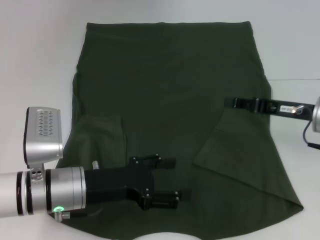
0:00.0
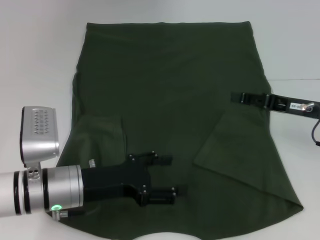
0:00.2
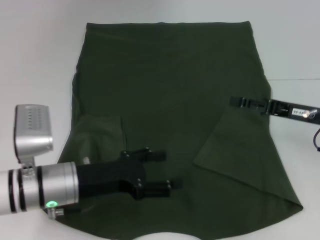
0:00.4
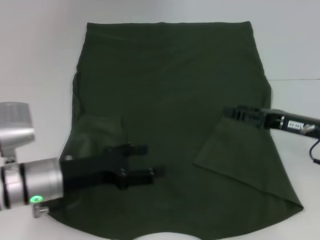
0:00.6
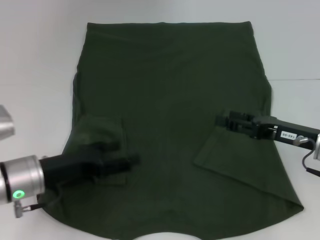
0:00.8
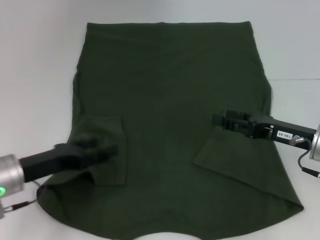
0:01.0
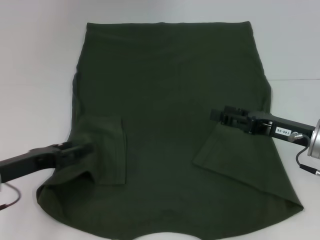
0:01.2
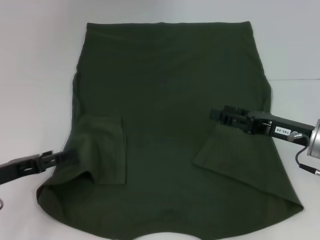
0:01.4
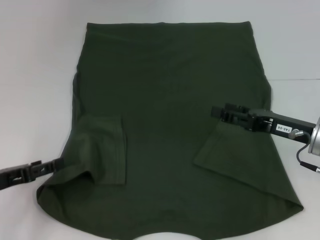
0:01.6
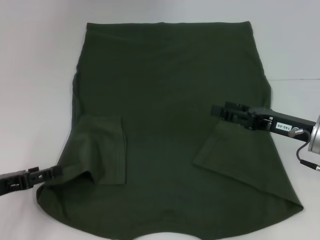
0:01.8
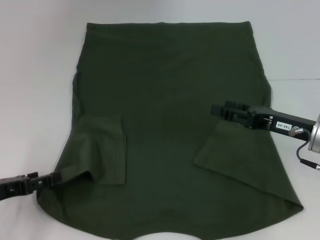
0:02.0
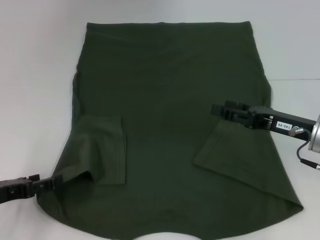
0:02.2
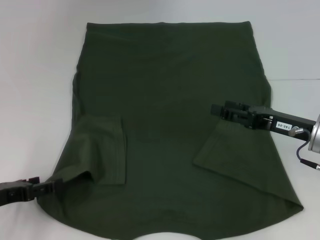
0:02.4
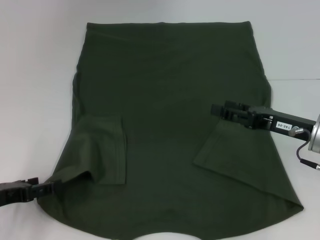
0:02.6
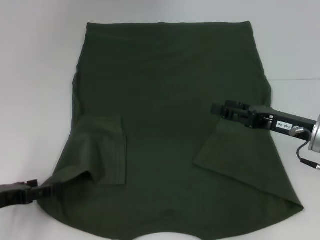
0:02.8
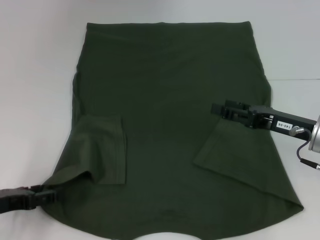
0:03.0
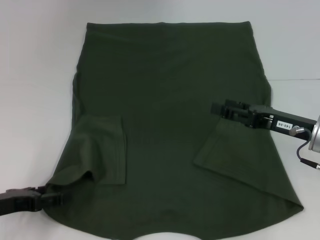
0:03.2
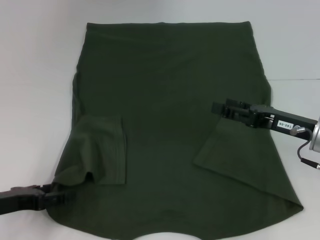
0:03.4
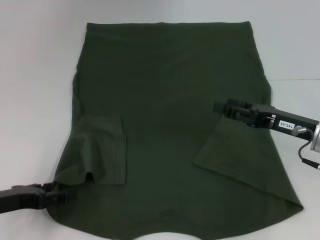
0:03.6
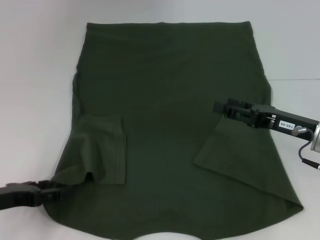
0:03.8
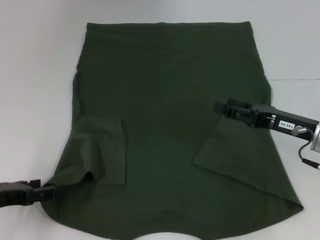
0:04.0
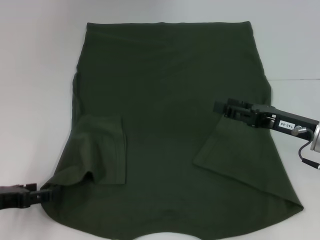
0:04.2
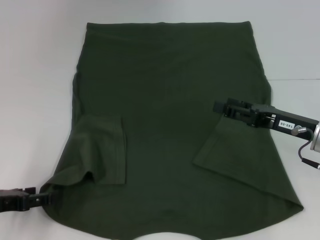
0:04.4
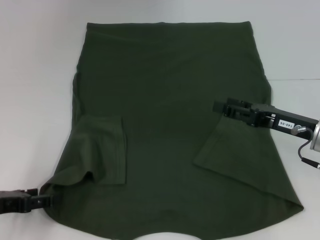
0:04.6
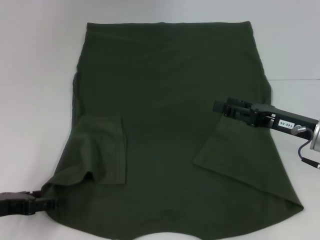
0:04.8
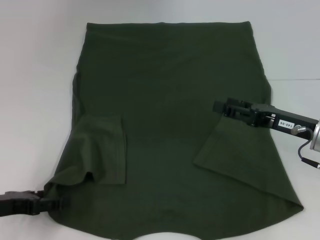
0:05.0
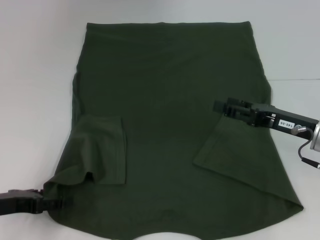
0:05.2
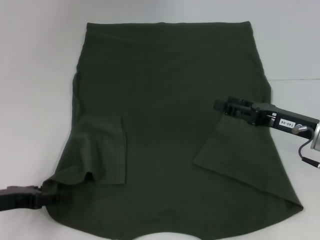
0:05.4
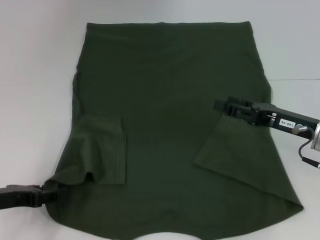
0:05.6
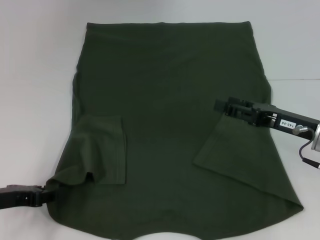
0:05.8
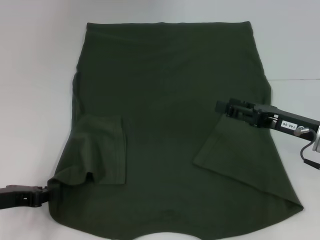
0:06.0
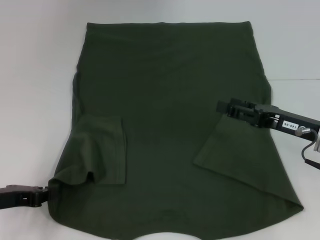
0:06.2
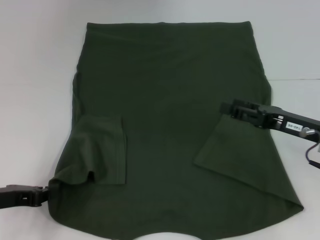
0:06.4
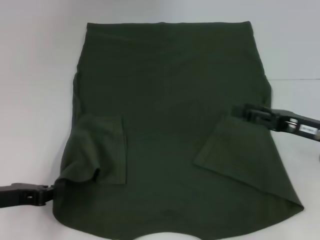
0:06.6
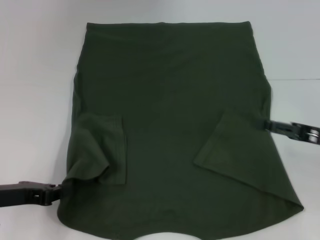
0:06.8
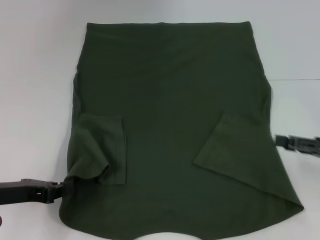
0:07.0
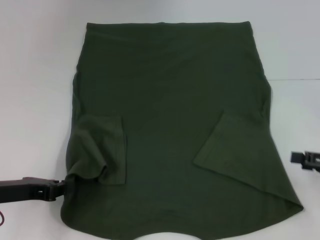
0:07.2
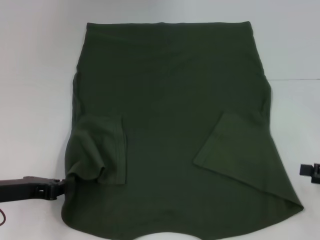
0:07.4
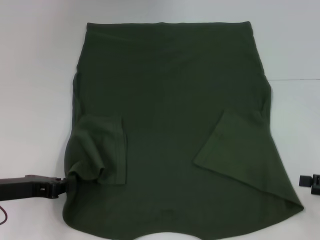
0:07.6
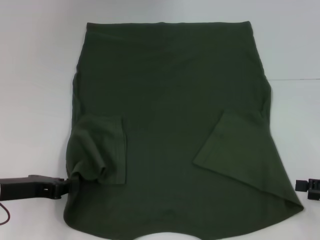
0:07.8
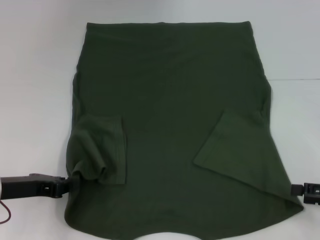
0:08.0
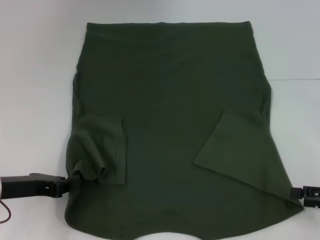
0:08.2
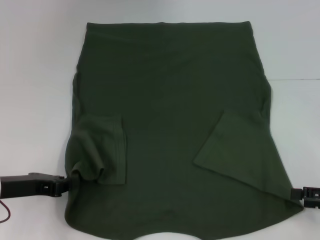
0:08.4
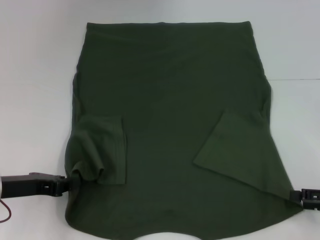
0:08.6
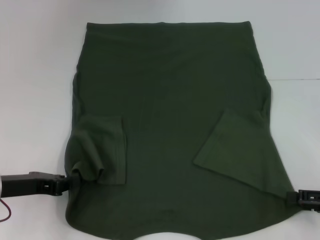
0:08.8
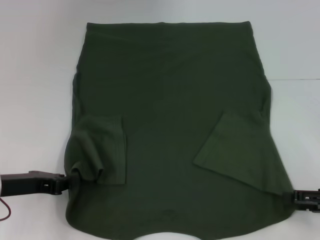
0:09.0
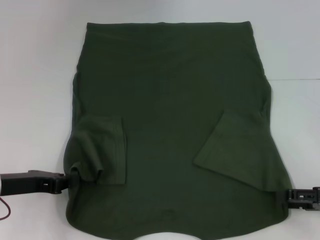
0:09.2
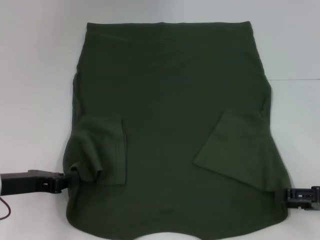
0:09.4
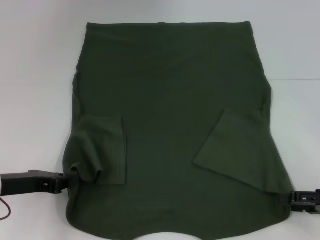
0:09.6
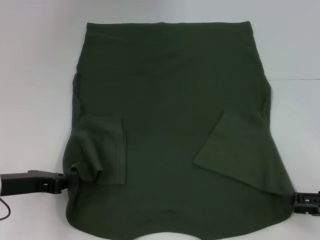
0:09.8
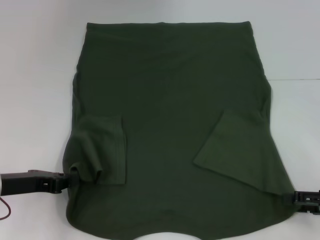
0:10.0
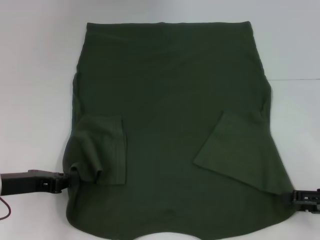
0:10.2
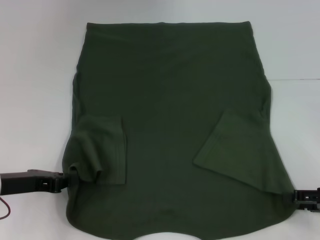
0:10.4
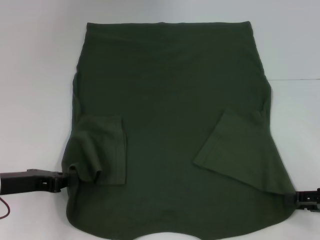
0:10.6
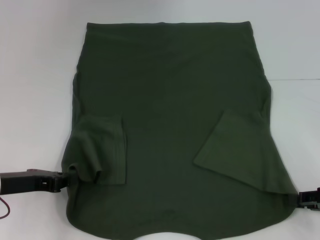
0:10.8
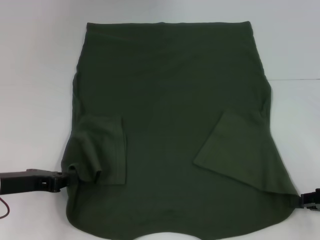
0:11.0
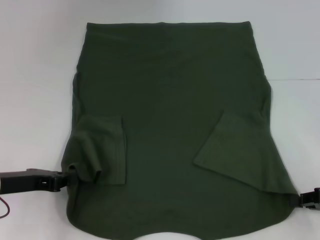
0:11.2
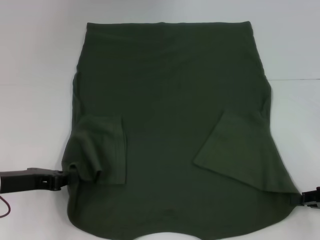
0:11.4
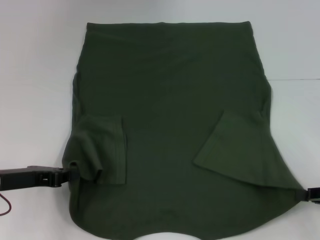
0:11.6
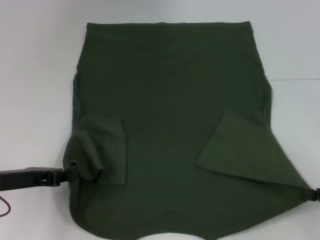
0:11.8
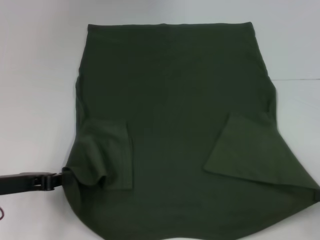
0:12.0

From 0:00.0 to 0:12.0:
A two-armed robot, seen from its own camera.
Step, from 0:00.4 to 0:06.4: Grab the bottom left corner with your left hand.
Step, from 0:06.6 to 0:11.6: Grab the bottom right corner with your right hand.
From 0:00.0 to 0:01.6: The left gripper moves to the left, some 15 cm. Meanwhile the right gripper opens up.
From 0:01.6 to 0:04.4: There are only small adjustments of the grippers.
From 0:04.4 to 0:06.0: The left gripper closes.
From 0:06.0 to 0:07.6: The left gripper closes its fingers. The right gripper goes some 15 cm to the right and backward.
From 0:07.6 to 0:09.0: The grippers make only small movements.
From 0:09.0 to 0:10.4: Neither gripper changes place.
From 0:10.4 to 0:12.0: The right gripper closes up.

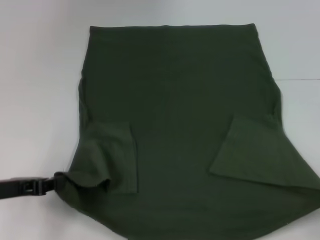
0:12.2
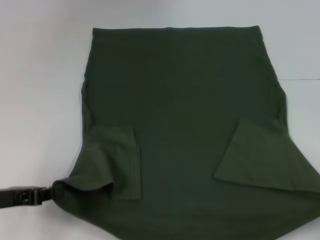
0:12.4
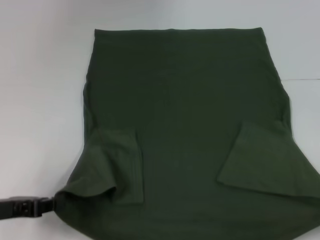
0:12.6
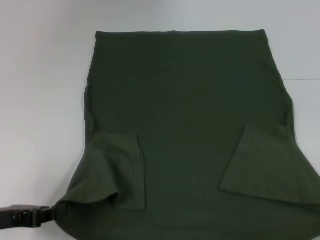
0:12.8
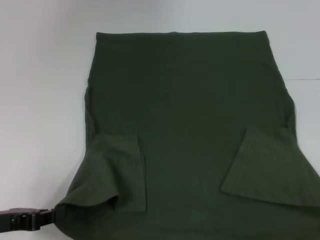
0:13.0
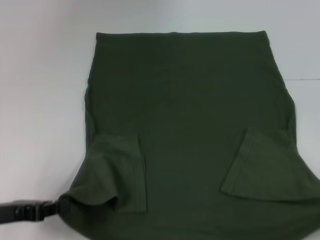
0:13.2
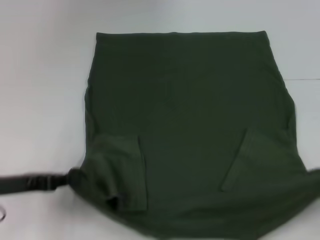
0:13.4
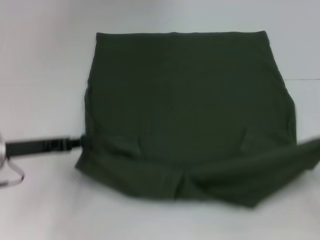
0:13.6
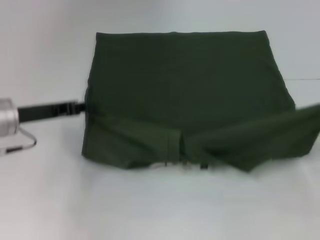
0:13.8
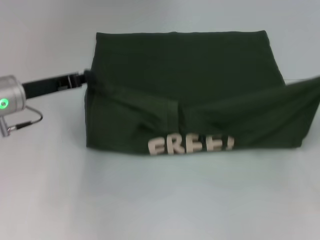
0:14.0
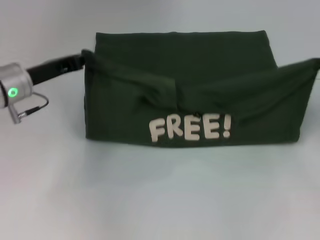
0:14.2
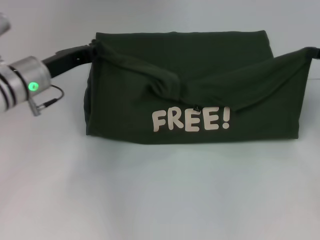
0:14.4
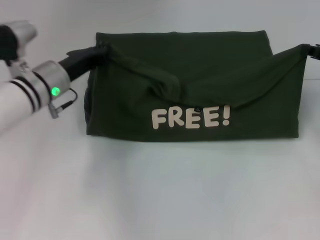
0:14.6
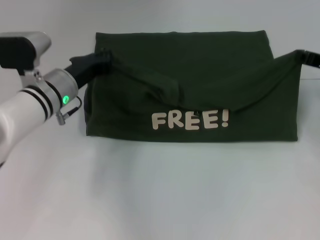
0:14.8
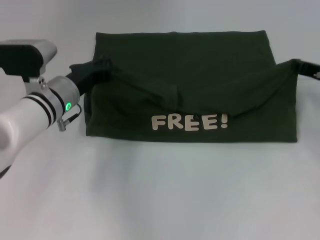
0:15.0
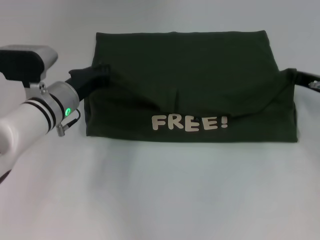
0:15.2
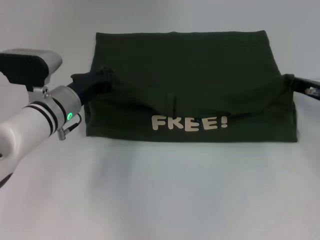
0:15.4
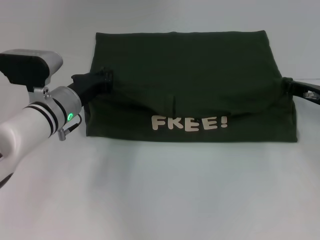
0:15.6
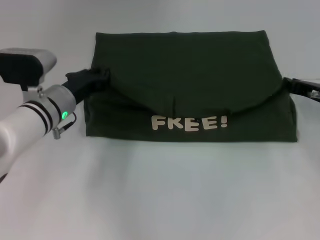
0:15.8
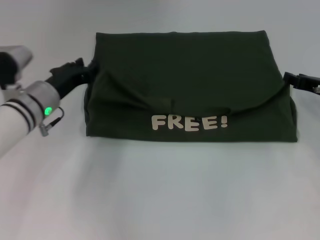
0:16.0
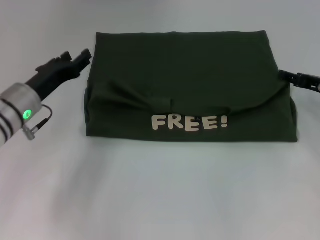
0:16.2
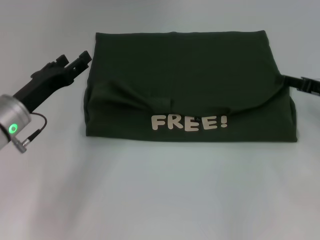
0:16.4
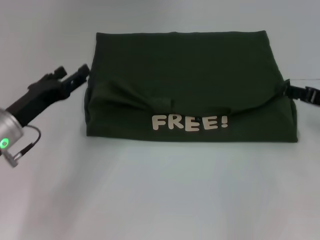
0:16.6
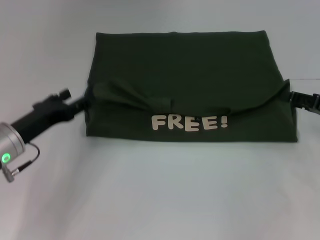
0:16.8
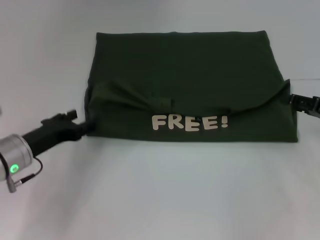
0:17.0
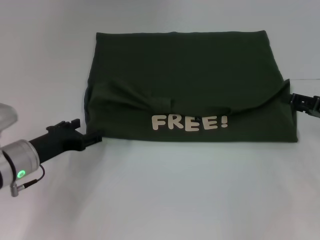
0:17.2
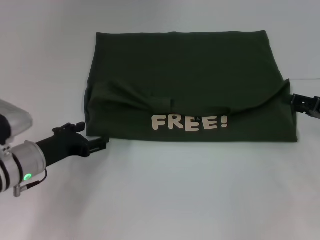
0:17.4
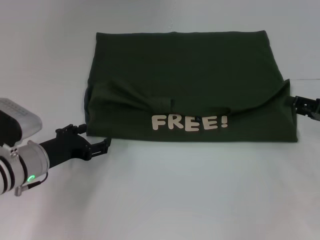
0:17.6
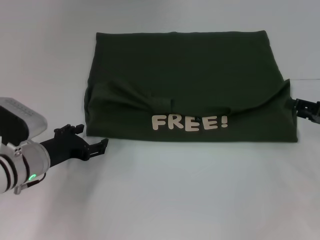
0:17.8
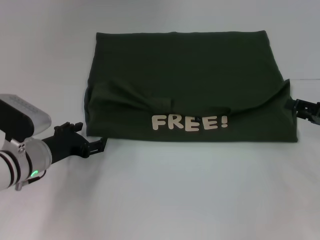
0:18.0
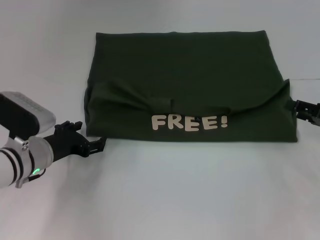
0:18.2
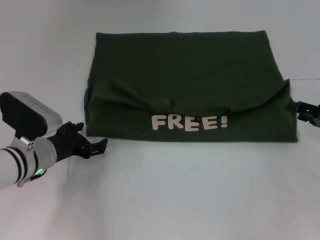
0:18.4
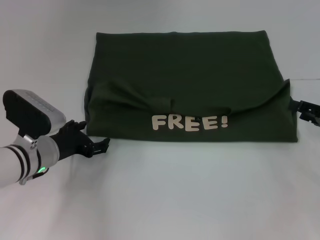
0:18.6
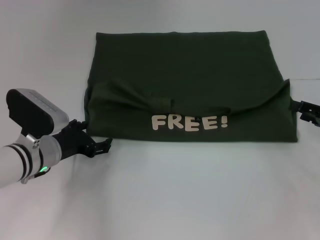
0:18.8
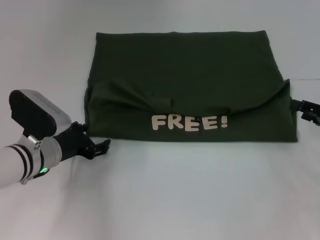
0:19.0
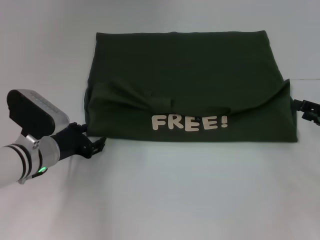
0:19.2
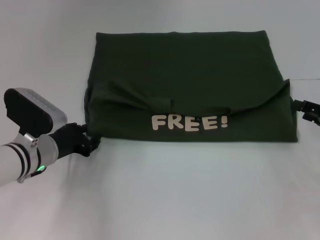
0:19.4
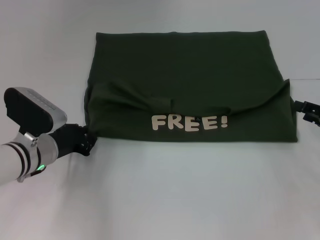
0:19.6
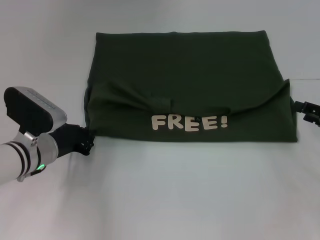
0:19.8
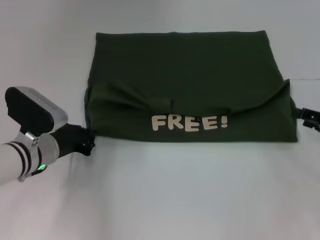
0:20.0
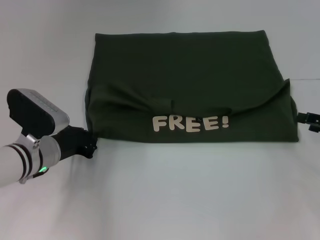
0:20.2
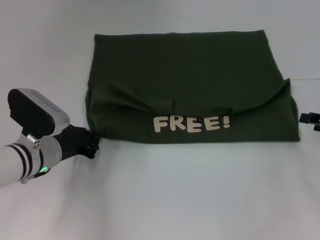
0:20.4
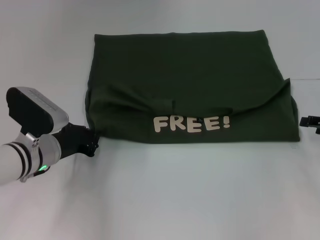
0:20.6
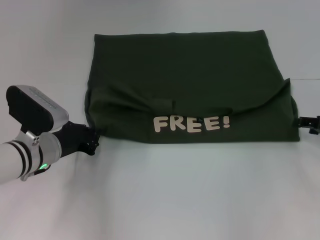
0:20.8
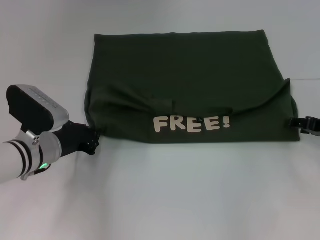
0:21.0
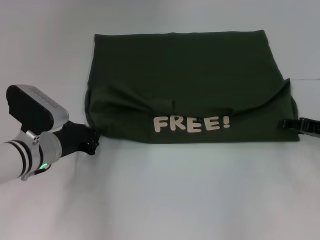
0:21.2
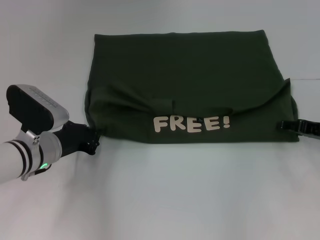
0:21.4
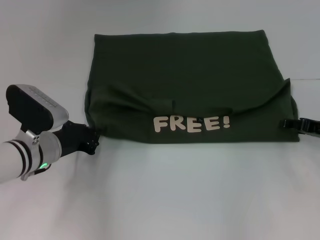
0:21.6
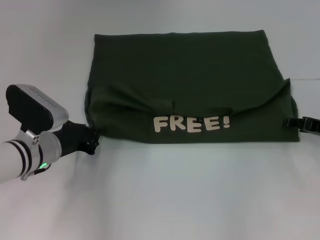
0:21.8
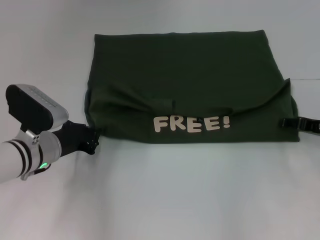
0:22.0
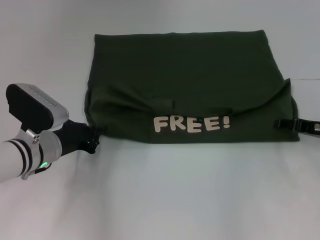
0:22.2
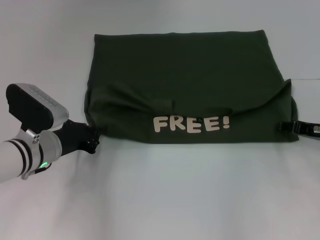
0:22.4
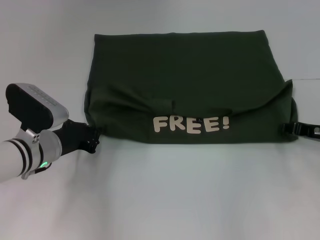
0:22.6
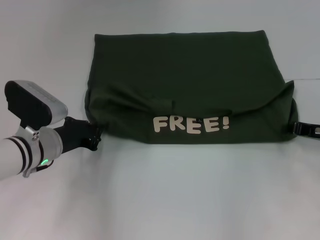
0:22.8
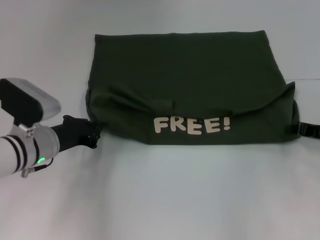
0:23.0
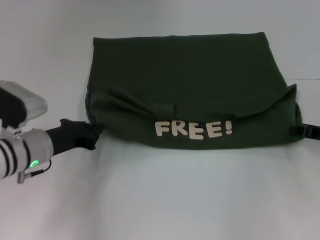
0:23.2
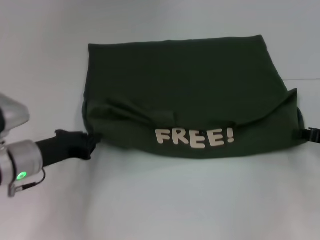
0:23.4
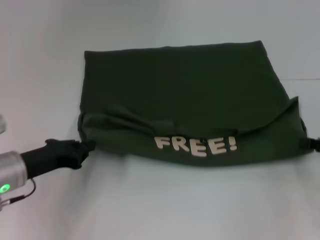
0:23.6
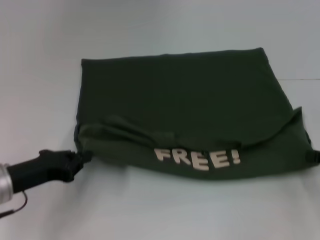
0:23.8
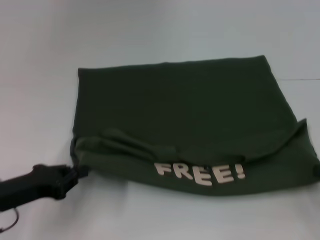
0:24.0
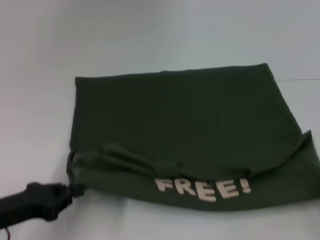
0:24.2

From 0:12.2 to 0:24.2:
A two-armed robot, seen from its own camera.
Step, from 0:12.2 to 0:16.0: Fold the clothes with your left hand.
Step, from 0:12.2 to 0:16.0: Fold the clothes with your right hand.
From 0:12.2 to 0:13.8: The left gripper heads forward, covering about 10 cm. The right gripper goes some 10 cm forward and upward.
From 0:13.8 to 0:15.2: The left gripper goes roughly 10 cm to the right and forward. The right gripper goes approximately 15 cm forward and to the left.
From 0:15.2 to 0:16.6: The left gripper is displaced to the left and backward by some 10 cm, and opens up; the right gripper ends up some 5 cm from where it was, and opens its fingers.
From 0:16.6 to 0:18.2: The left gripper is displaced downward by some 5 cm.
From 0:18.2 to 0:19.8: The left gripper closes its fingers.
From 0:21.2 to 0:22.6: There are only small adjustments of the grippers.
From 0:22.6 to 0:24.2: The right gripper heads backward and to the right, covering about 15 cm, and closes up, while the left gripper is displaced backward and to the left by some 15 cm.
